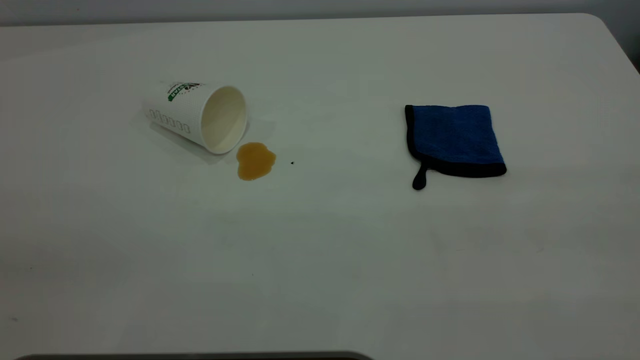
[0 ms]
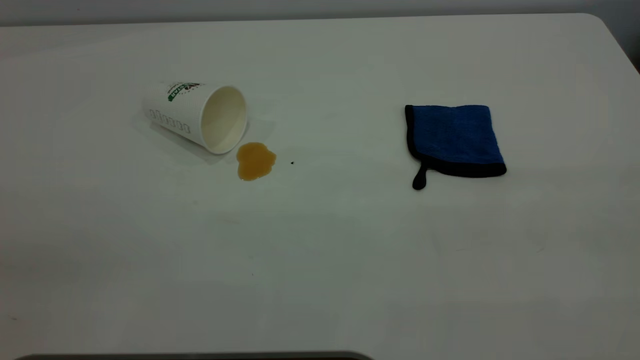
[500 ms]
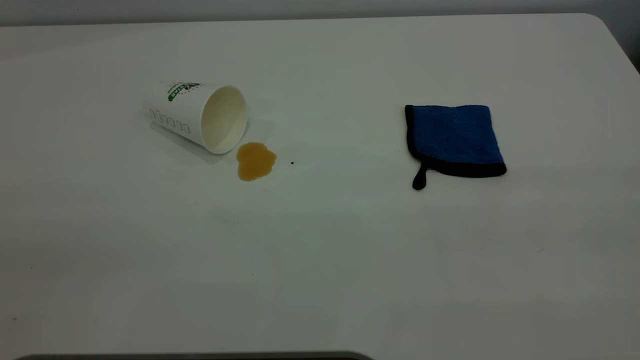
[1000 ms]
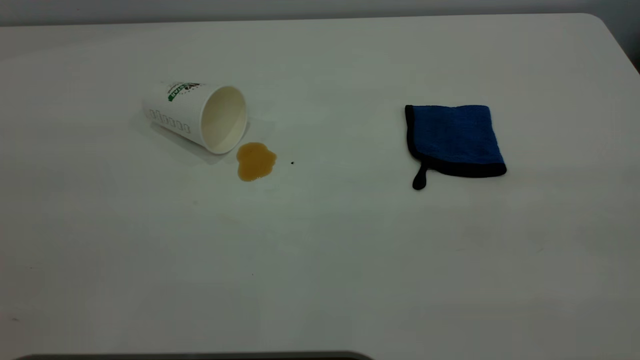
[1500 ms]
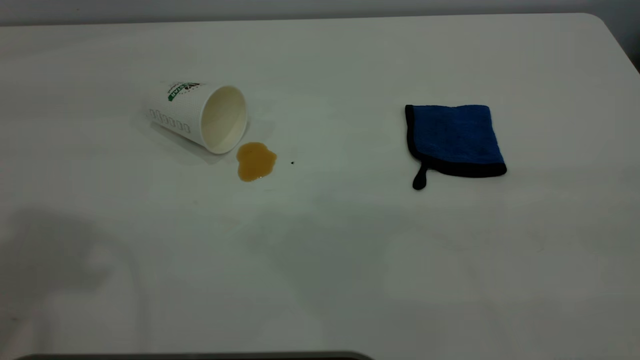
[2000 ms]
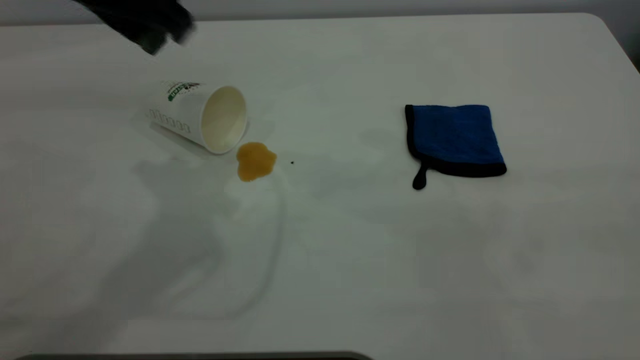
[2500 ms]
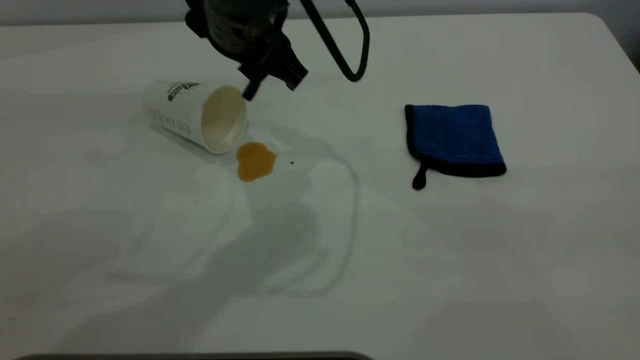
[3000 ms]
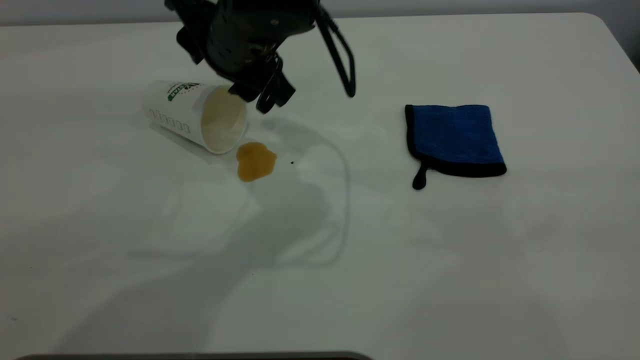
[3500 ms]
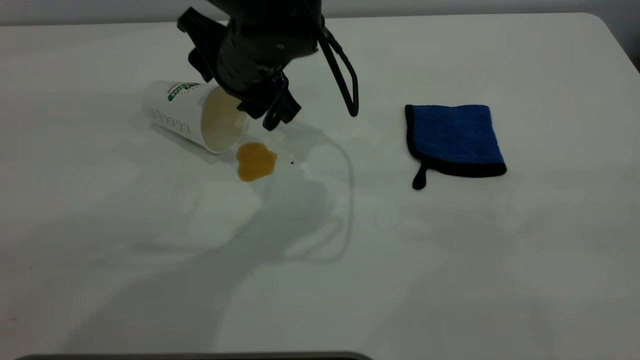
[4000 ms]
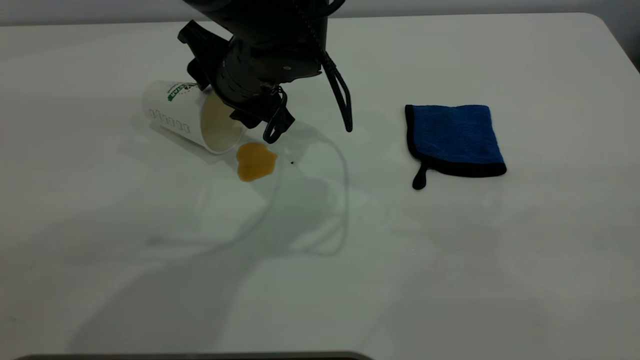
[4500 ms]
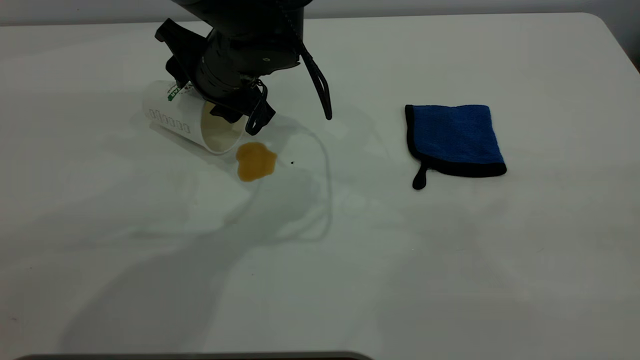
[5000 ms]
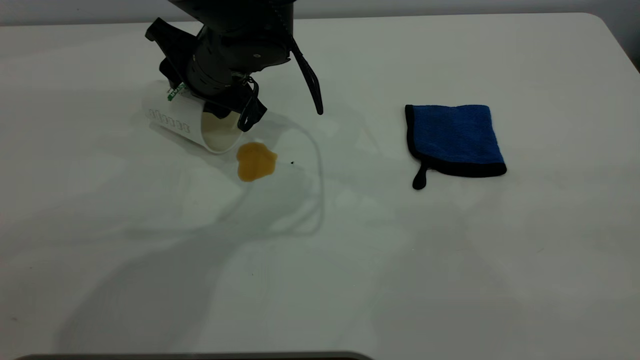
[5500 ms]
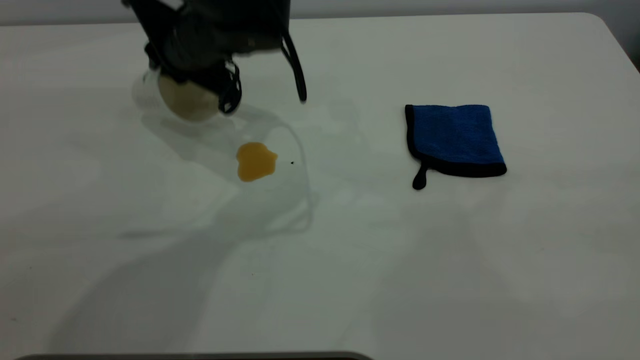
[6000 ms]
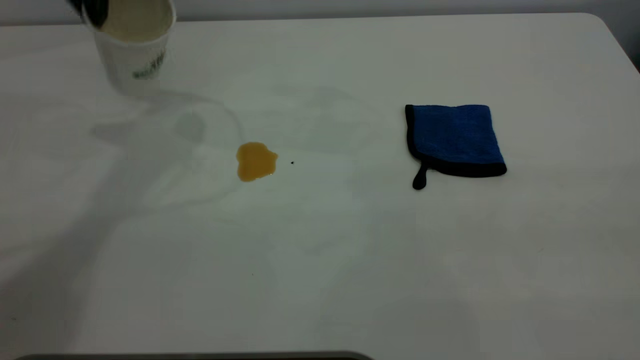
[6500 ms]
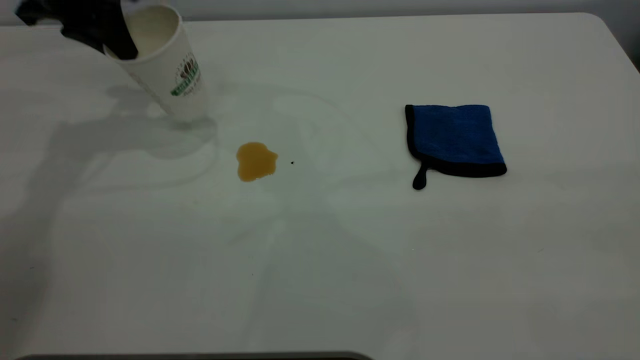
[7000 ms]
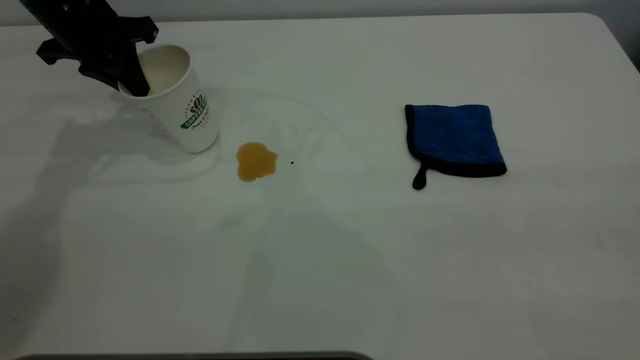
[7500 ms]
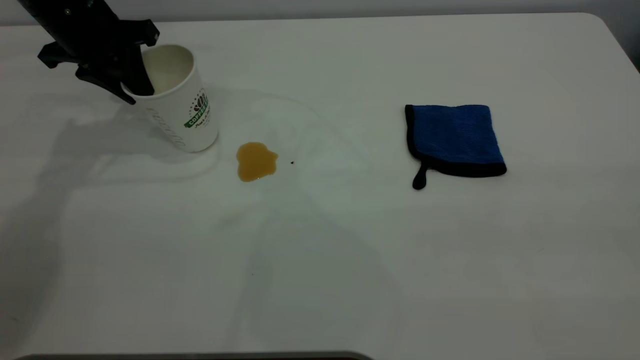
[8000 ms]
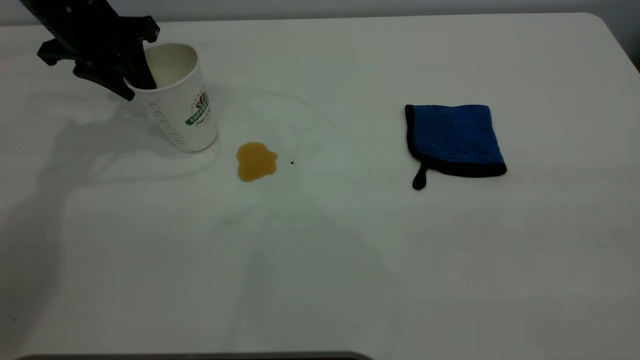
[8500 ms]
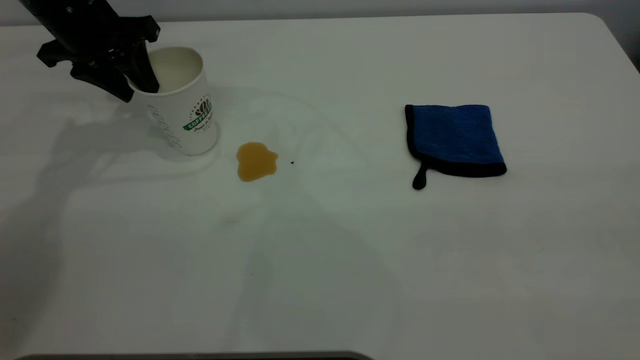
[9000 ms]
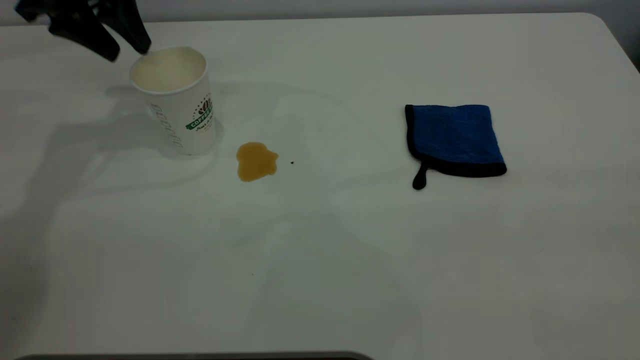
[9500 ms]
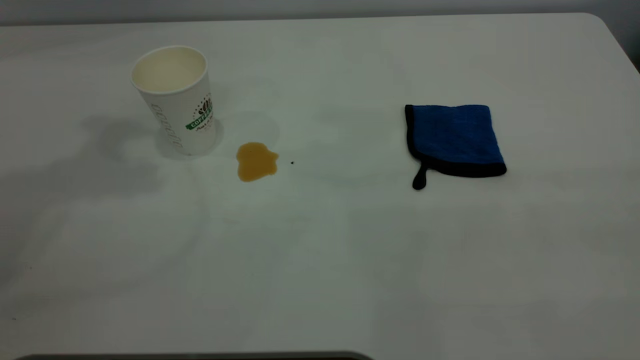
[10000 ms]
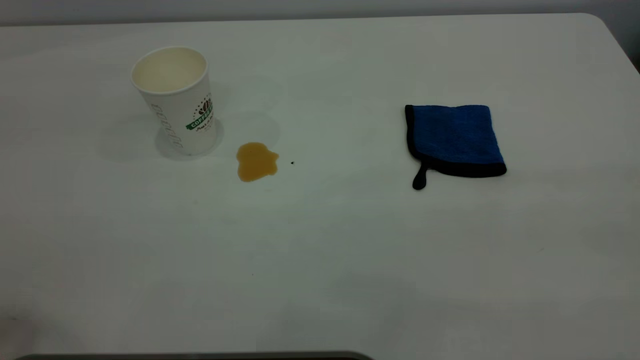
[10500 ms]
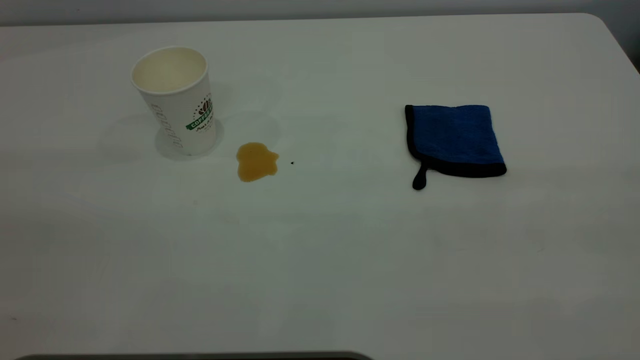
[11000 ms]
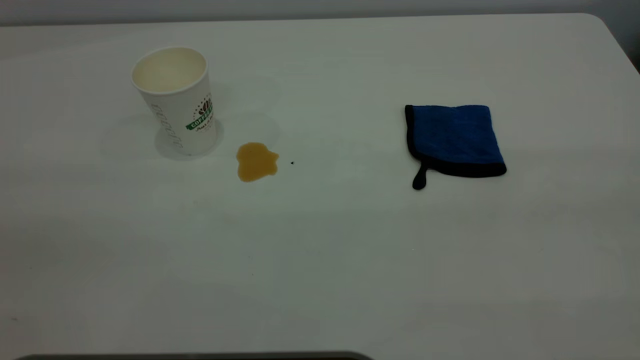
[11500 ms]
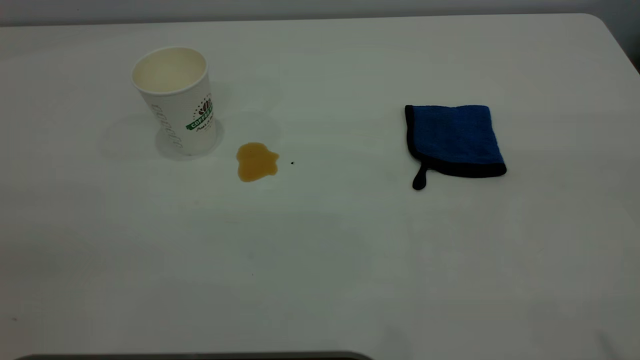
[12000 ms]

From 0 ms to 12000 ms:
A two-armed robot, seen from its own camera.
Task of the whole recording: the left gripper pick up the fallen cup and place it upright, the right gripper grasp the blue rag and wipe the tea stain on the table, the right gripper put the blue rag back in its original position.
Step, from 0 ms to 9500 ms: Stand the paper cup upright.
From 2000 ms to 4000 ms: The left gripper moves downward, to the right and forward, approximately 35 cm.
From 4000 ms to 6000 ms: The left gripper shifts by some 5 cm, and closes up.
From 6000 ms to 8000 ms: The left gripper moves to the left, about 15 cm, and opens.
From 8000 ms to 10000 ms: The left gripper is displaced upward and backward by about 30 cm, and opens up.

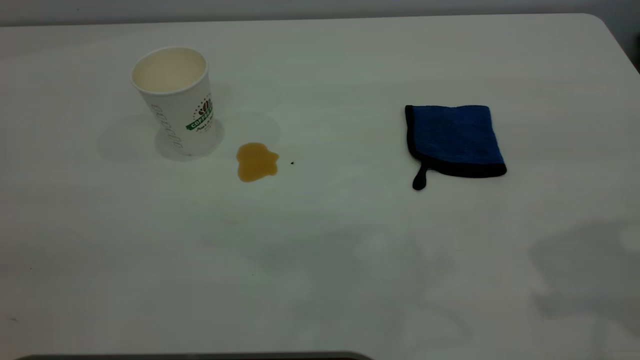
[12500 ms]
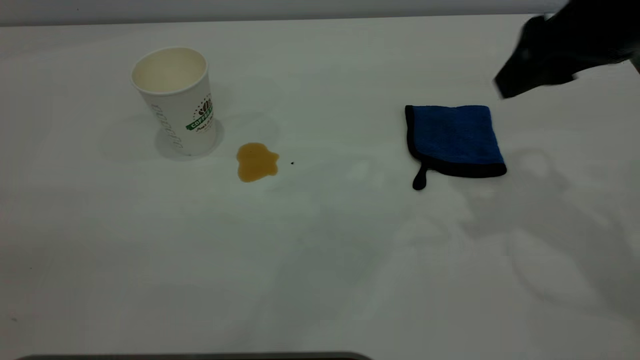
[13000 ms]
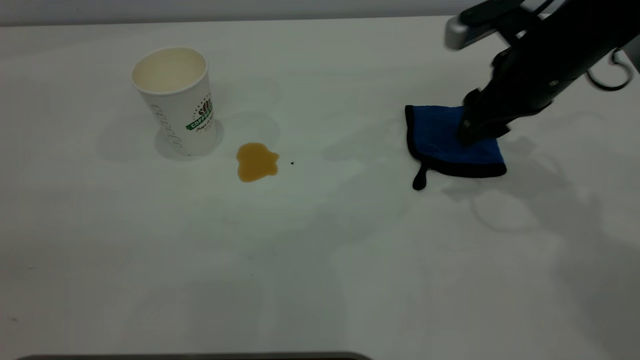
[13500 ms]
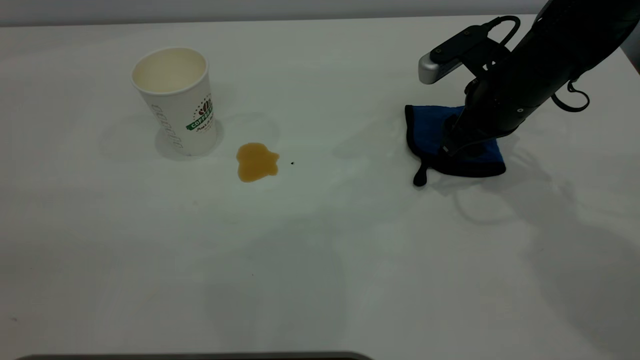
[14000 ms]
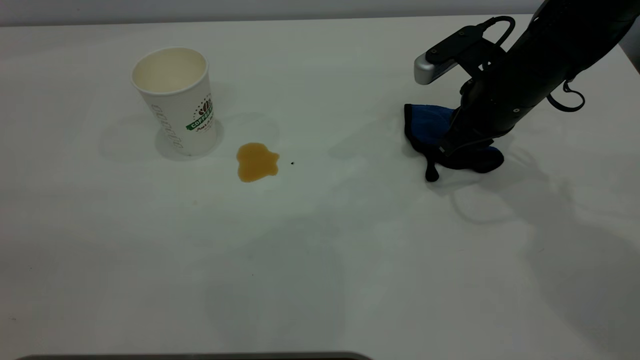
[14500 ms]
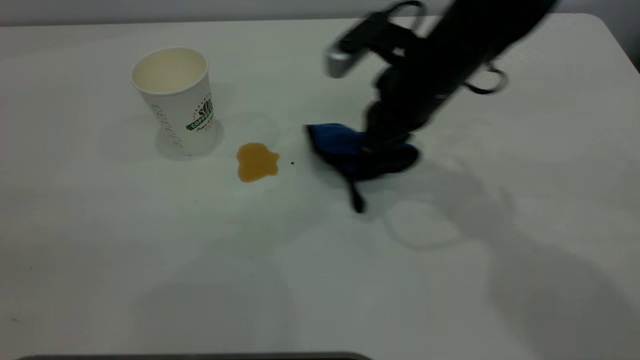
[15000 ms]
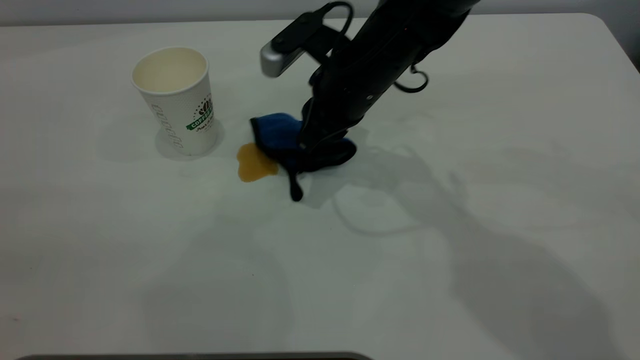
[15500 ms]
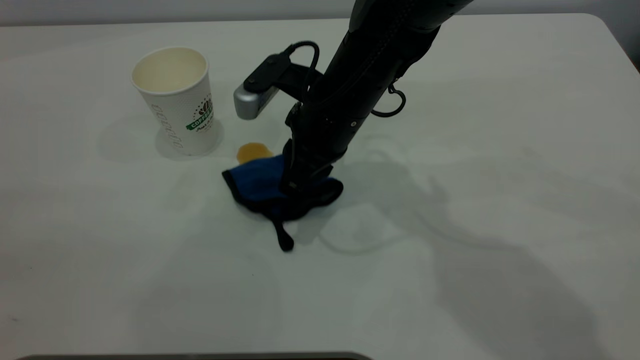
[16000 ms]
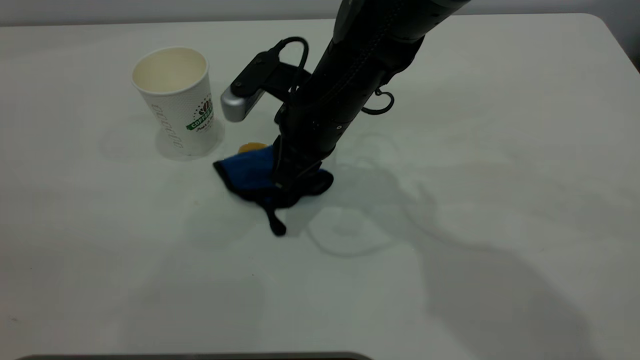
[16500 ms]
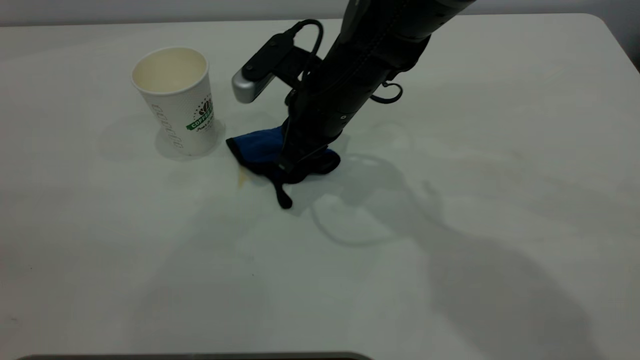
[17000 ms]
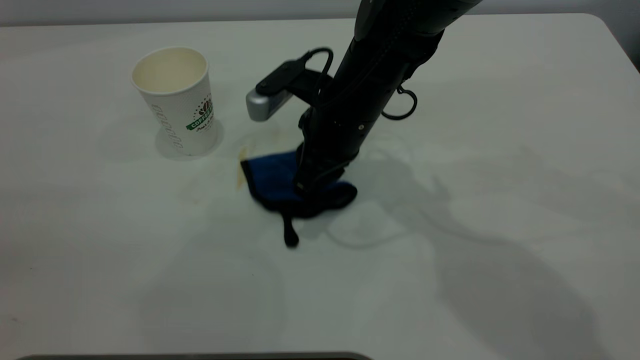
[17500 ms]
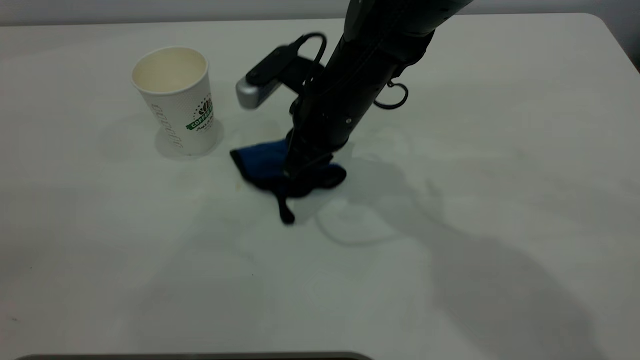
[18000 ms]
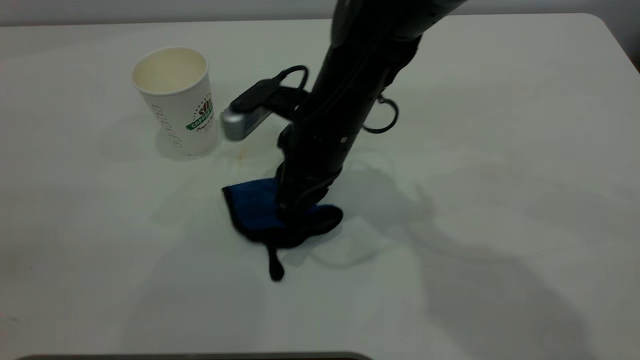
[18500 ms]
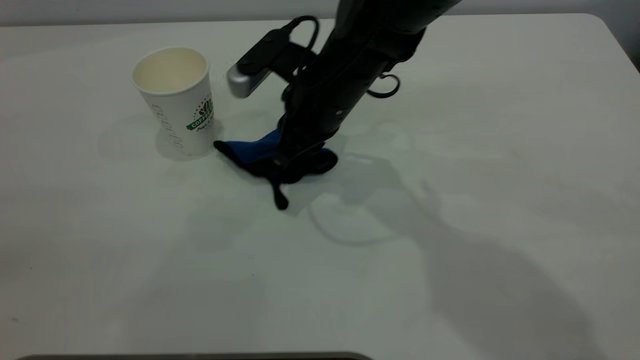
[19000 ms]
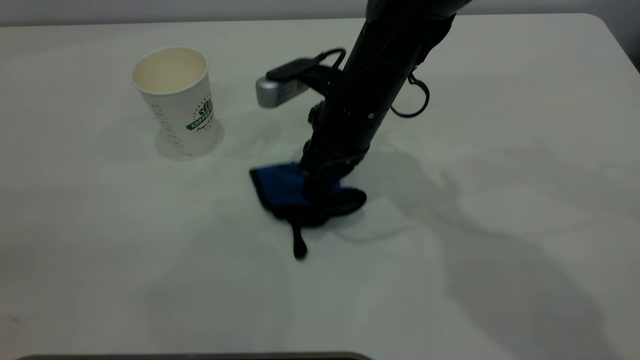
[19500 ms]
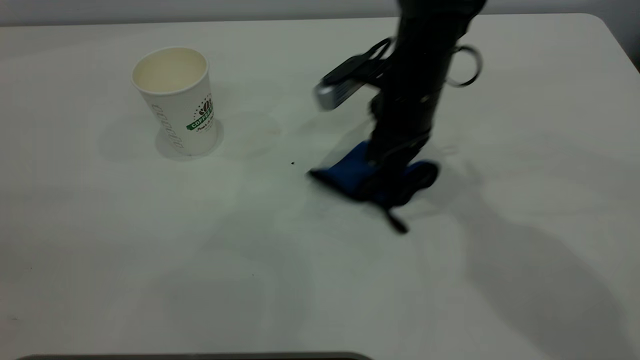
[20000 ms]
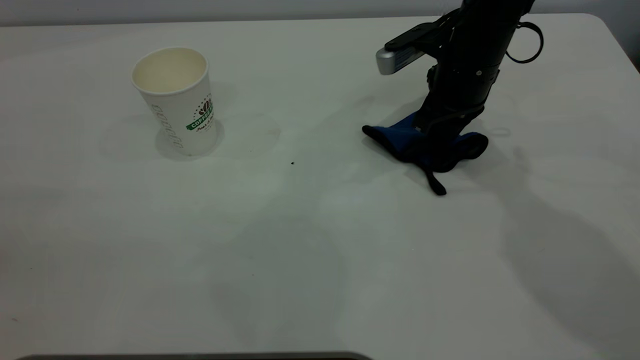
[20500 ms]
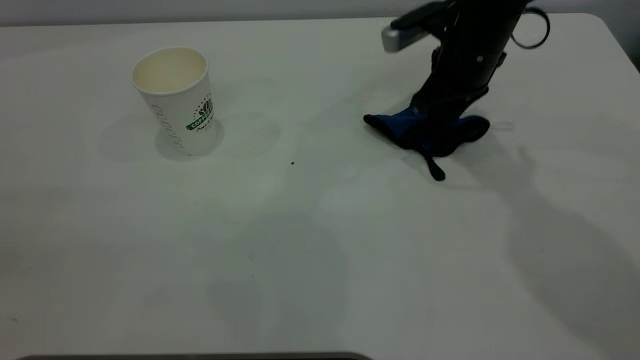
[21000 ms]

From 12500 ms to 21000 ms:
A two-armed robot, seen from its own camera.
Task of the whole recording: the left gripper pick up the fallen cup and place it upright, the right gripper grasp the blue rag and wipe the tea stain on the table, the right gripper put the blue rag back in its original position.
From 12500 ms to 14500 ms: The right gripper is displaced downward and forward by roughly 30 cm, and closes its fingers.
From 14500 ms to 16500 ms: The right gripper travels to the left by approximately 20 cm.
From 16500 ms to 19000 ms: The grippers move only a little.
From 19000 ms to 21000 ms: The right gripper travels to the right by roughly 15 cm, and opens.
